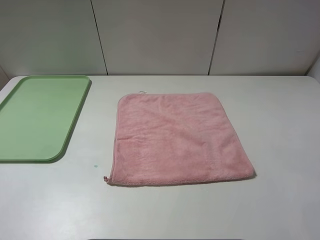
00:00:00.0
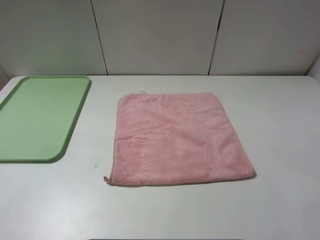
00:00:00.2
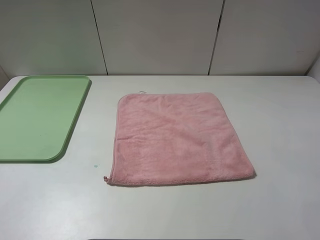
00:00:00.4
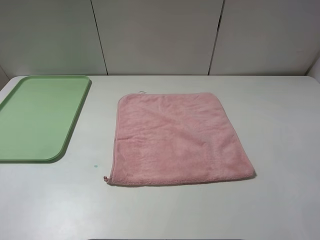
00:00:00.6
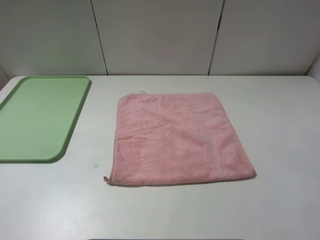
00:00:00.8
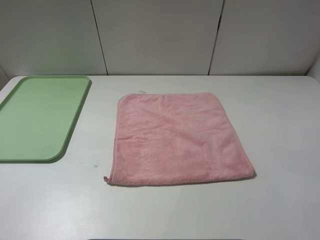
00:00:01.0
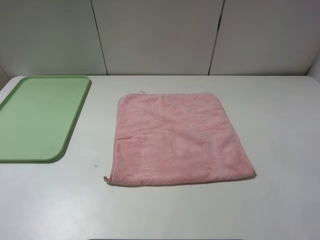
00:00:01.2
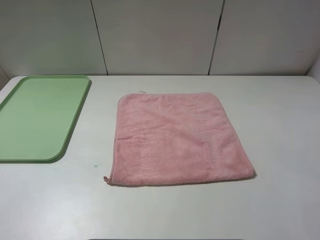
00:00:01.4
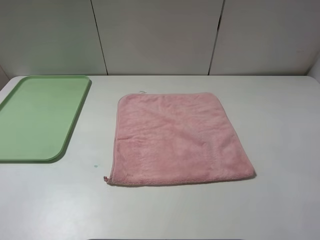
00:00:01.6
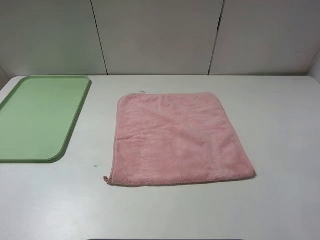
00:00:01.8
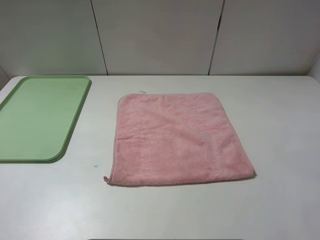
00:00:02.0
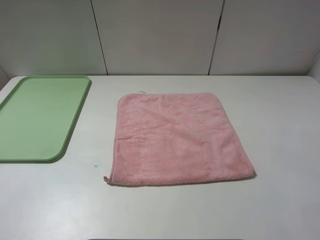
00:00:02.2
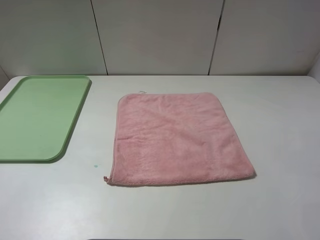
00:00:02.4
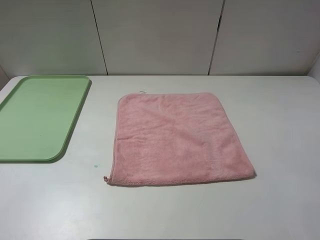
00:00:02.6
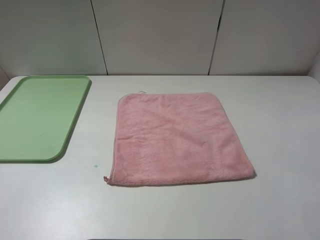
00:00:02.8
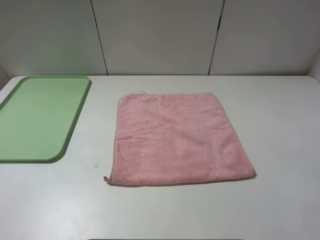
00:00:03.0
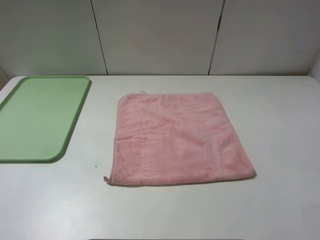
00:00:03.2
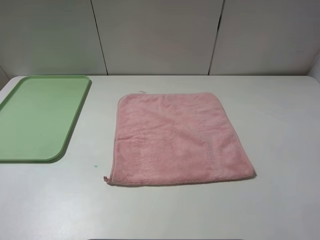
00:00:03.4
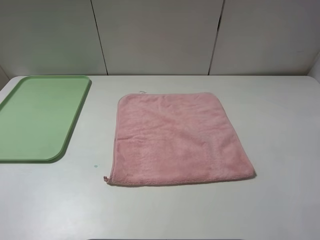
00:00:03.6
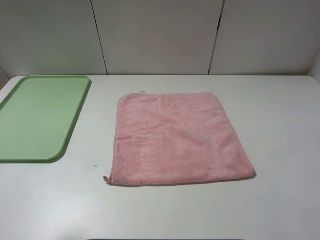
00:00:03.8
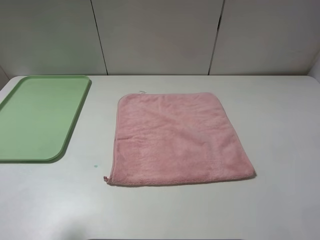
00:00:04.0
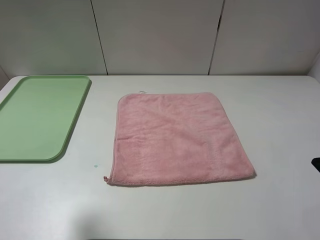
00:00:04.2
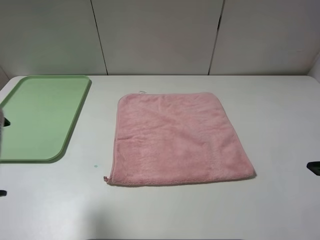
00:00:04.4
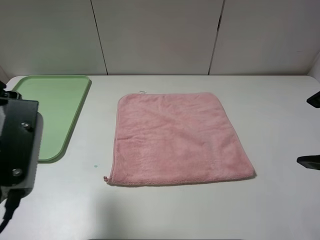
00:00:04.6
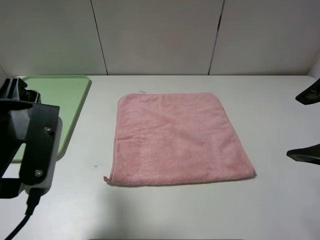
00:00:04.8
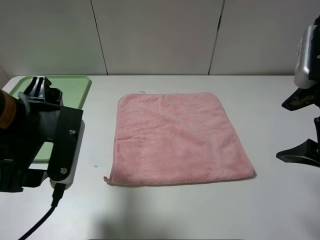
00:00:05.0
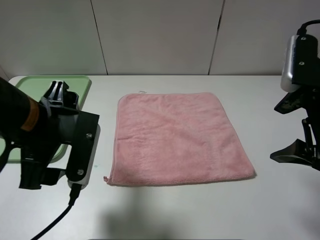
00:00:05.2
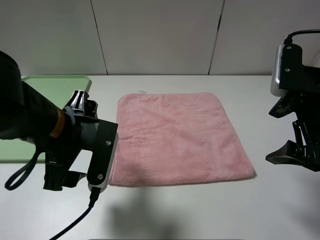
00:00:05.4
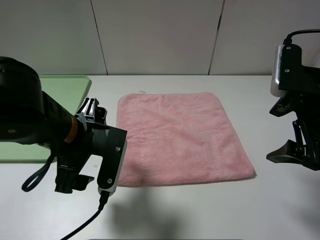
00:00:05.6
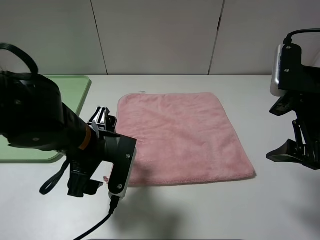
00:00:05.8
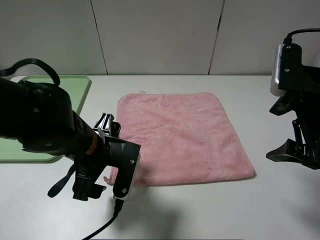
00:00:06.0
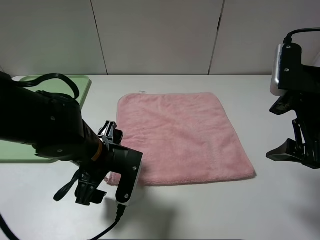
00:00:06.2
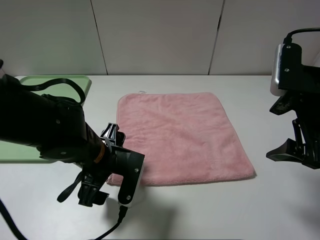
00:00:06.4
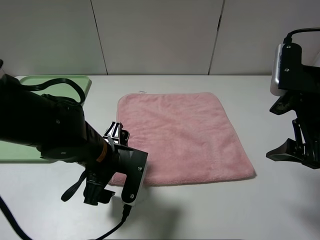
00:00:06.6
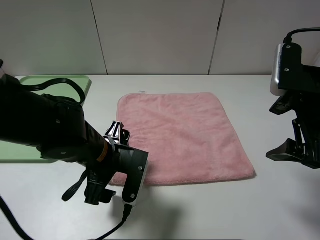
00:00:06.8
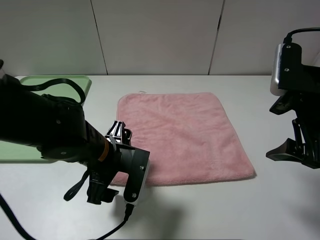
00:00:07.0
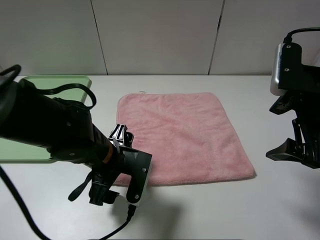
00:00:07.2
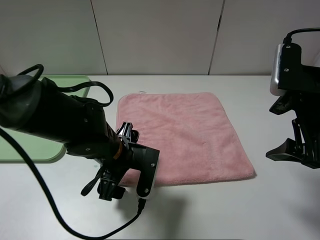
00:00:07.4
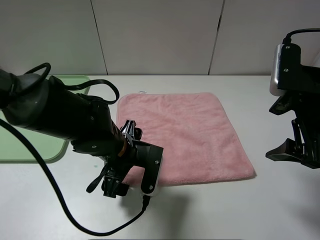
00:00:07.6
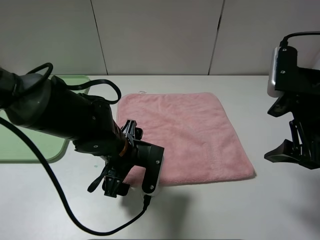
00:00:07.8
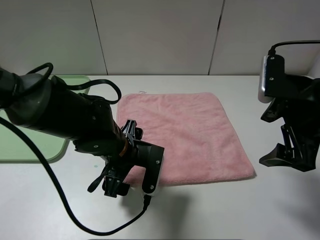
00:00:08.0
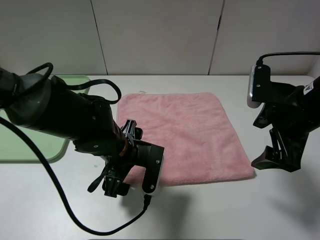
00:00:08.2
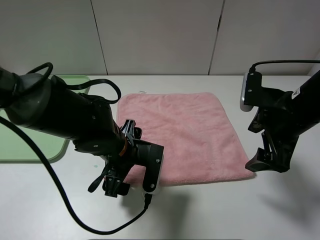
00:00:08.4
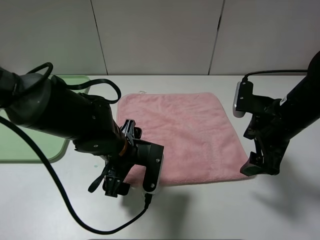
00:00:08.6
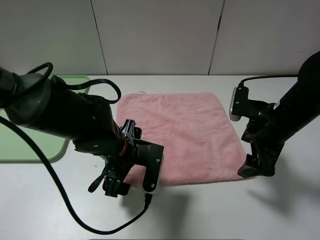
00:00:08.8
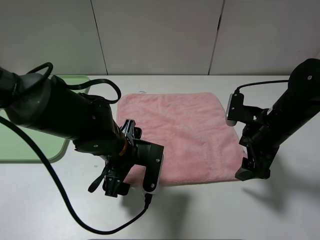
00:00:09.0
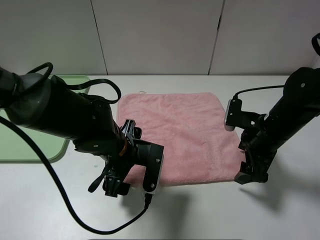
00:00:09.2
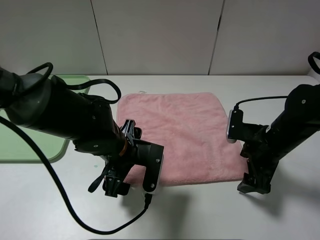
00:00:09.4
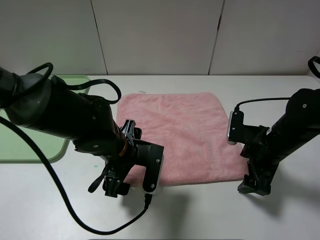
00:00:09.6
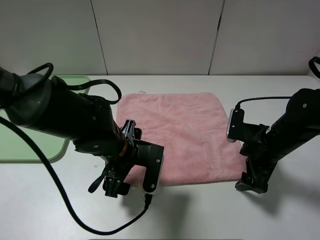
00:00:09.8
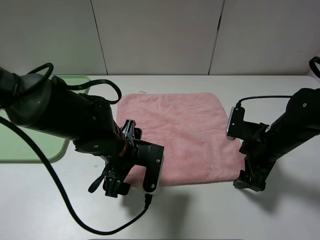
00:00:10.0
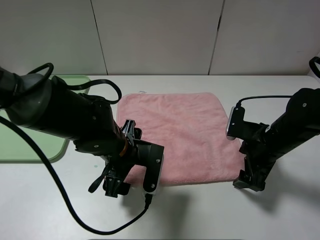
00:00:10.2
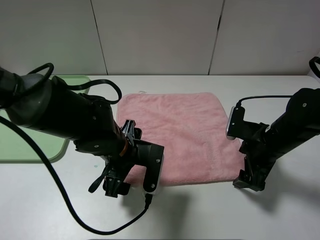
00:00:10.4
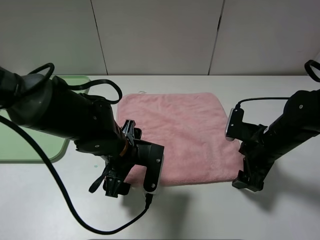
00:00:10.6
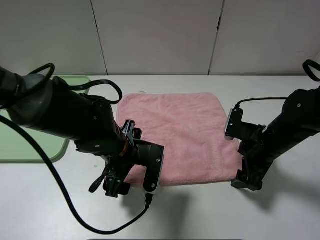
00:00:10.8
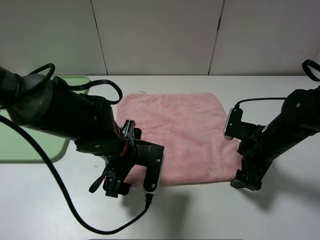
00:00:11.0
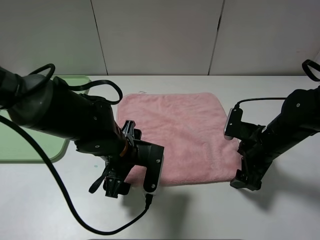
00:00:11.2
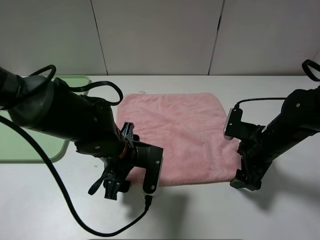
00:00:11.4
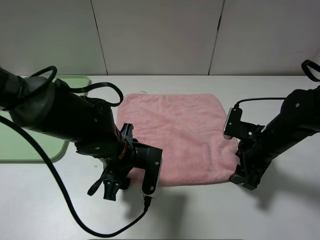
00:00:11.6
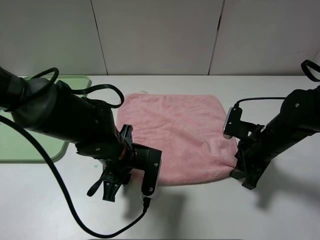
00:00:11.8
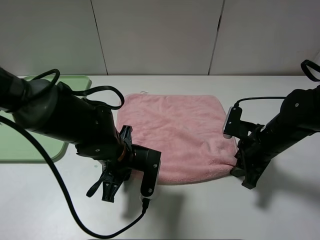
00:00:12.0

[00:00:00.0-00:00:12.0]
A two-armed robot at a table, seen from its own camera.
00:00:00.0 to 00:00:01.6: The two grippers keep their place.
00:00:03.0 to 00:00:04.4: The left gripper goes some 15 cm forward and to the right. Meanwhile the right gripper travels forward by some 10 cm.
00:00:04.4 to 00:00:06.0: The right gripper heads forward and downward, covering roughly 10 cm; the left gripper heads downward, to the right and forward, covering about 20 cm.
00:00:06.0 to 00:00:07.6: The left gripper shifts by some 5 cm.
00:00:07.6 to 00:00:09.0: The right gripper is displaced downward and forward by some 15 cm.
00:00:09.0 to 00:00:10.4: There are only small adjustments of the grippers.
00:00:10.4 to 00:00:12.0: The left gripper closes its fingers. The right gripper closes.

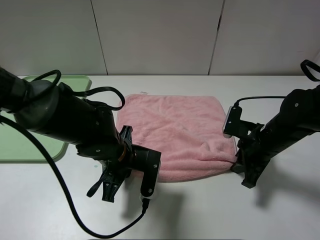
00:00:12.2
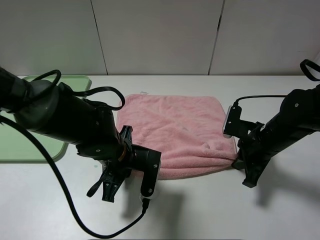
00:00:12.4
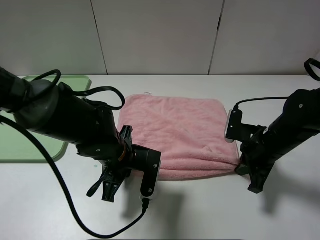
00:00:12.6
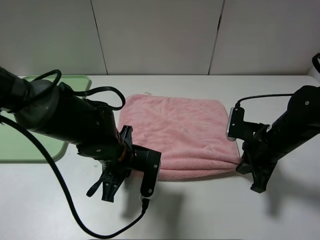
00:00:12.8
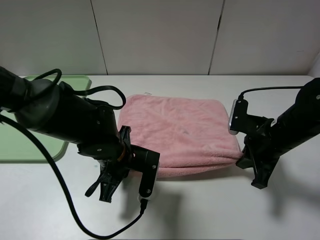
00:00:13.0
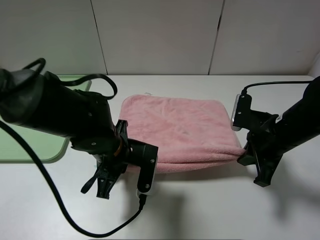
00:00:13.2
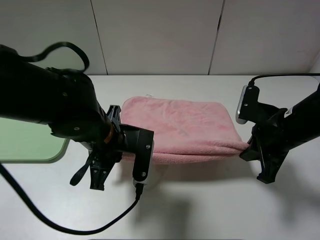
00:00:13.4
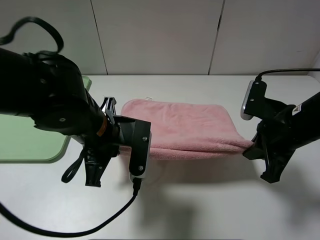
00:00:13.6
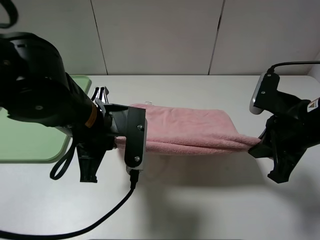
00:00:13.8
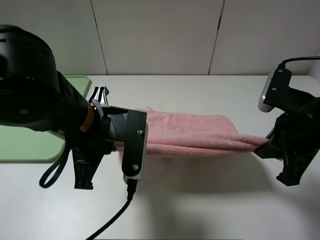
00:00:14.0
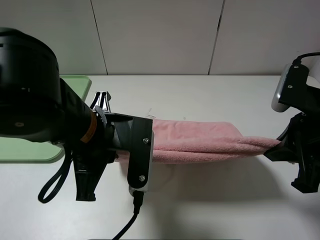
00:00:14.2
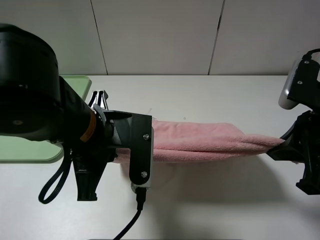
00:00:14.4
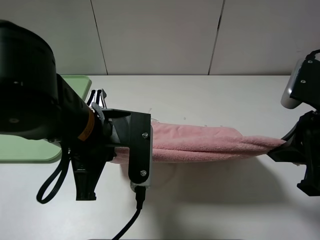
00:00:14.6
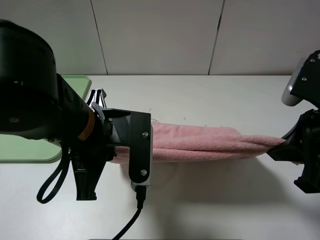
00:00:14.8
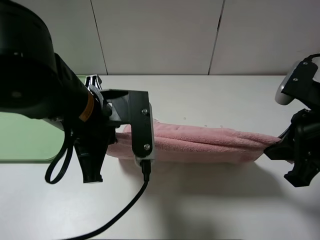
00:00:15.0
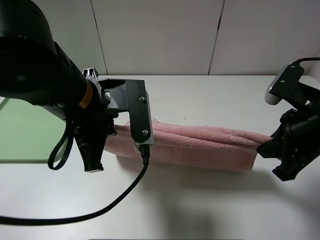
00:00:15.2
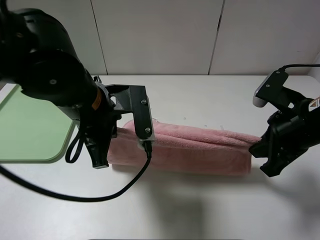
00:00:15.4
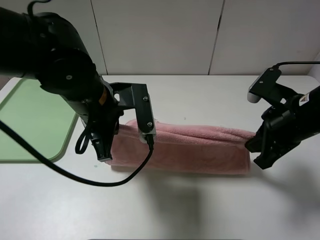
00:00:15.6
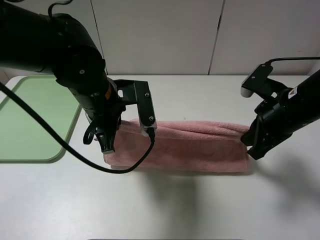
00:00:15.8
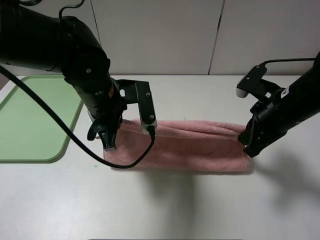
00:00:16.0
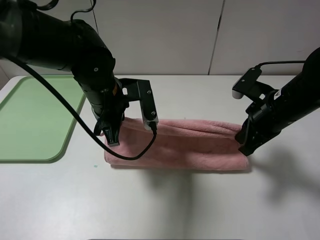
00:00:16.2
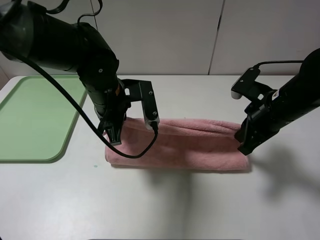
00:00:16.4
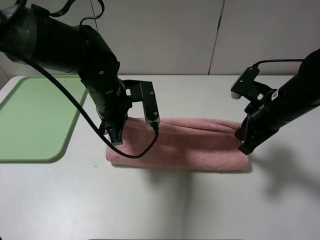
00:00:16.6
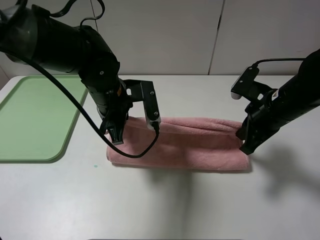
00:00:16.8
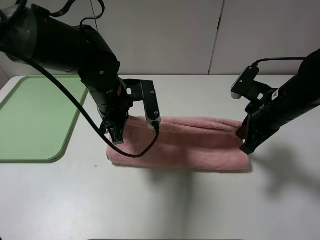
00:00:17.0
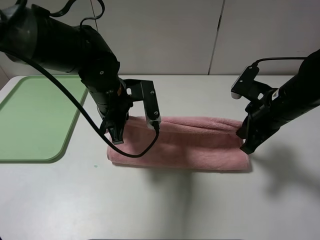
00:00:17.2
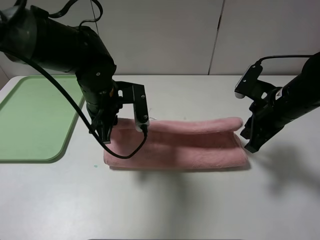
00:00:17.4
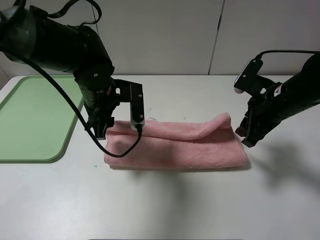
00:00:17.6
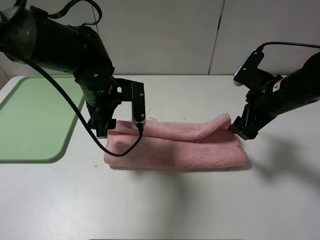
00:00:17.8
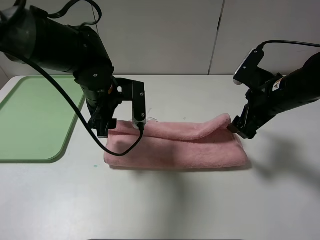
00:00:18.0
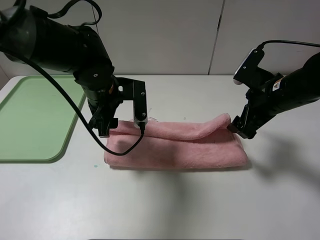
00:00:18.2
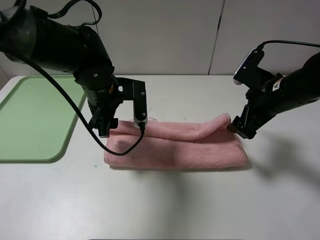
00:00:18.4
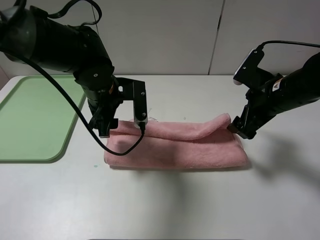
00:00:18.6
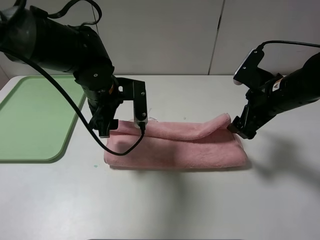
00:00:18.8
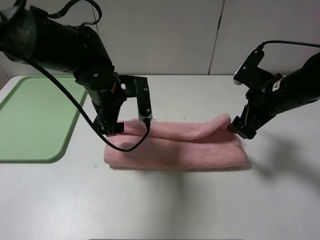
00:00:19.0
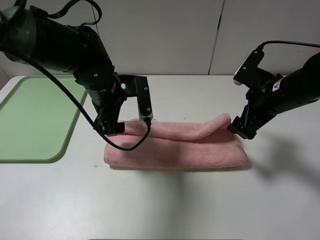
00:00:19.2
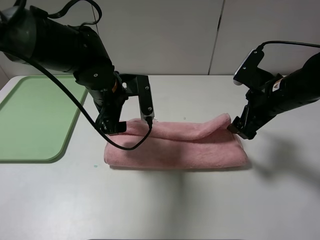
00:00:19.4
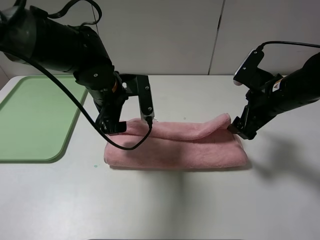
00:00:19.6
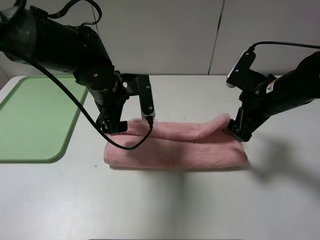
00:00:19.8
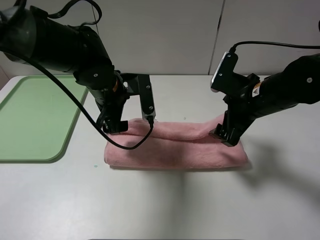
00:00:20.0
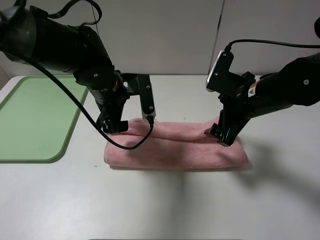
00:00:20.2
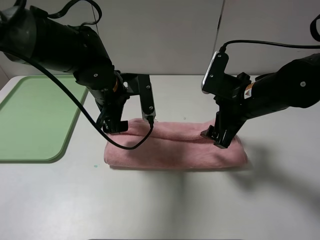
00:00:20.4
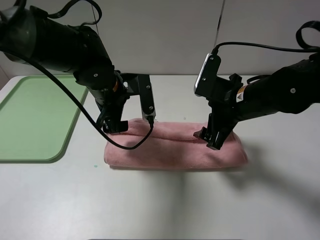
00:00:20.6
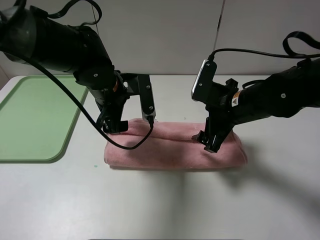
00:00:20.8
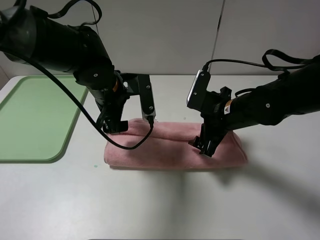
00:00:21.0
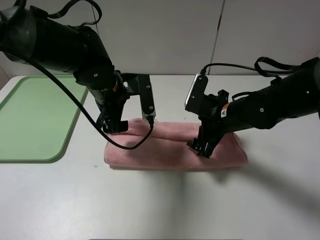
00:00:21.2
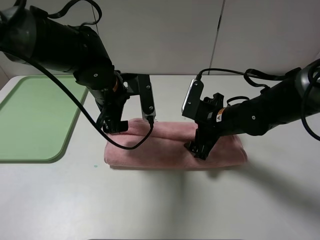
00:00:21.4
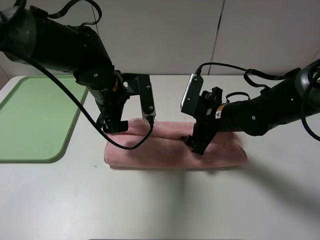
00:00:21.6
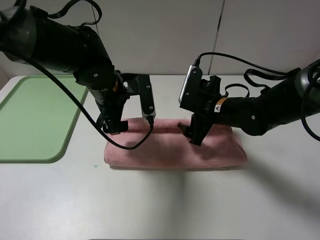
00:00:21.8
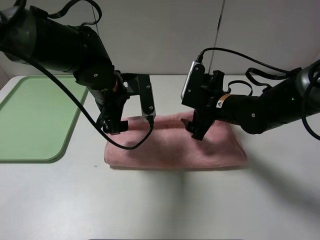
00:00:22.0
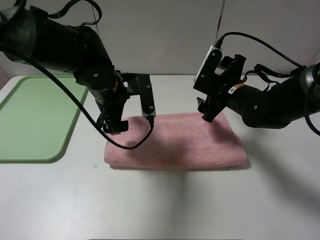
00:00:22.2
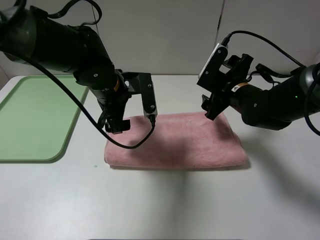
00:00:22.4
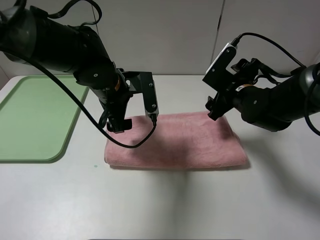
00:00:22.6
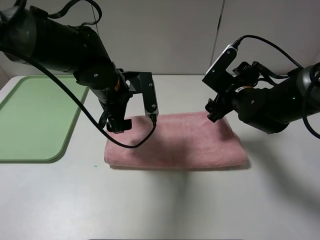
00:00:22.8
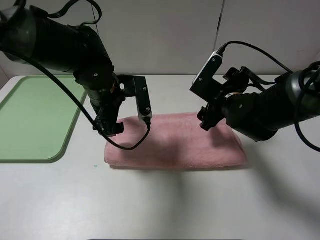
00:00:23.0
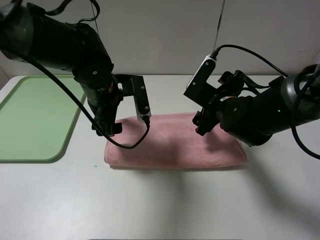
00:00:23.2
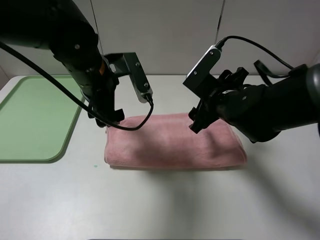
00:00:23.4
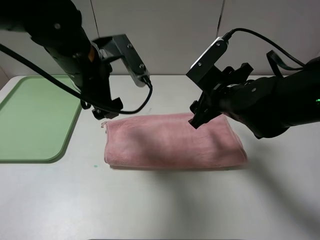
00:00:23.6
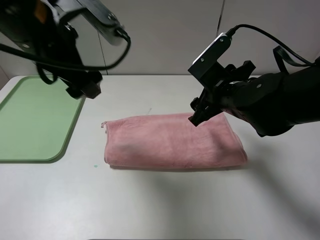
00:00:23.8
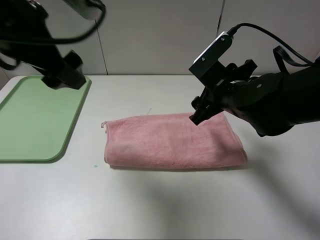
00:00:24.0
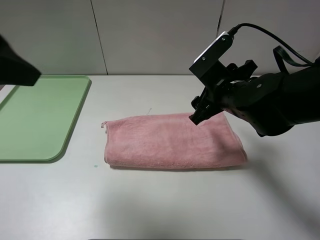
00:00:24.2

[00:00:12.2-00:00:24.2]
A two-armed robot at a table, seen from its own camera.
Step, 00:00:12.2 to 00:00:22.0: Fold the pink towel upwards.
00:00:12.2 to 00:00:13.8: The two grippers go roughly 10 cm upward.
00:00:15.2 to 00:00:16.6: The right gripper shifts approximately 10 cm forward, while the left gripper moves forward and downward, approximately 10 cm.
00:00:16.6 to 00:00:18.2: The right gripper opens its fingers; the left gripper opens up.
00:00:18.2 to 00:00:19.8: There are only small adjustments of the grippers.
00:00:19.8 to 00:00:21.2: The right gripper goes about 10 cm to the left and downward.
00:00:21.2 to 00:00:22.6: The right gripper ends up approximately 5 cm from where it was.
00:00:22.6 to 00:00:24.2: The right gripper moves backward, some 5 cm. The left gripper travels upward, backward and to the left by about 30 cm.
